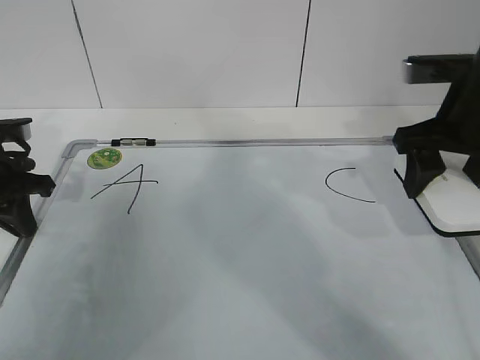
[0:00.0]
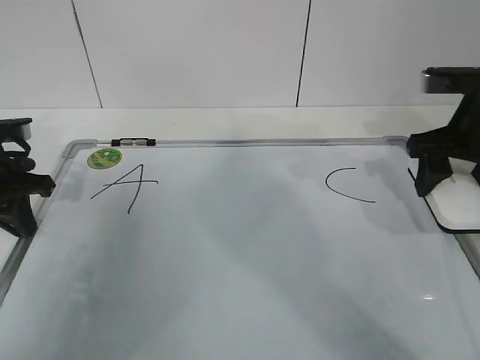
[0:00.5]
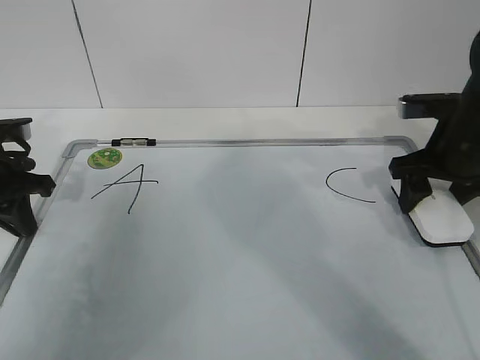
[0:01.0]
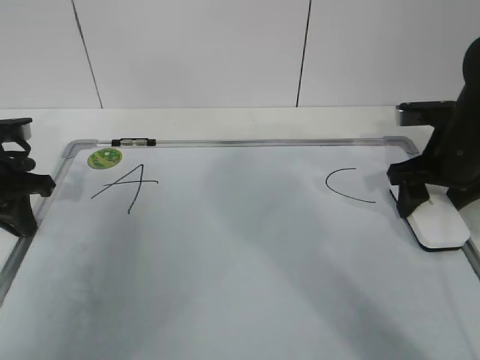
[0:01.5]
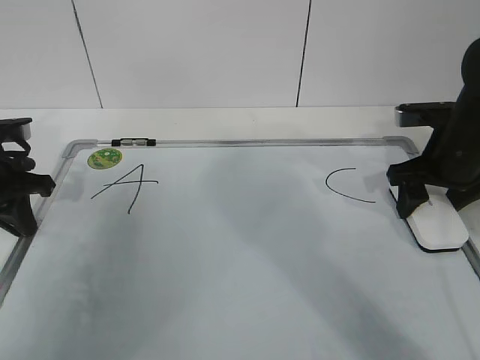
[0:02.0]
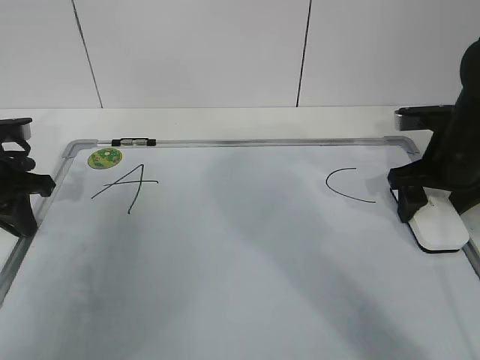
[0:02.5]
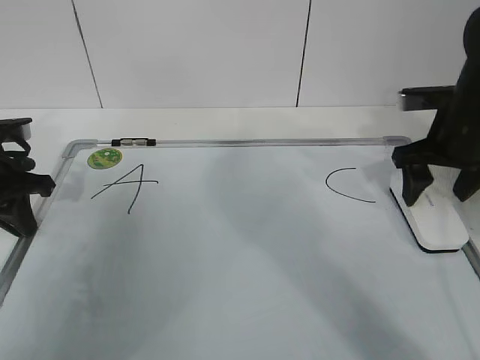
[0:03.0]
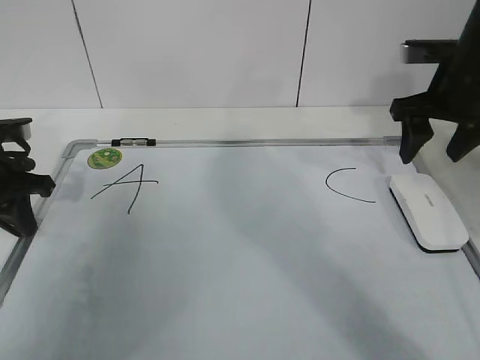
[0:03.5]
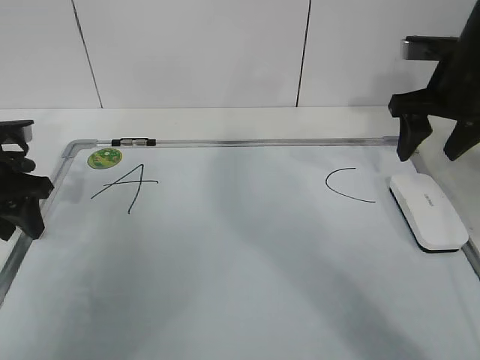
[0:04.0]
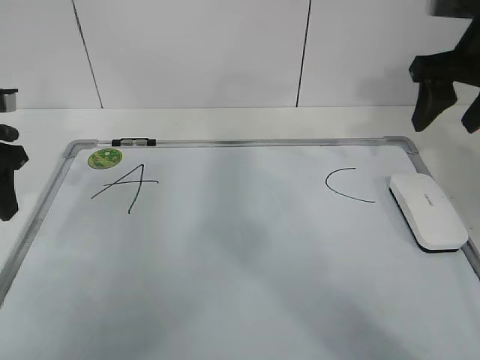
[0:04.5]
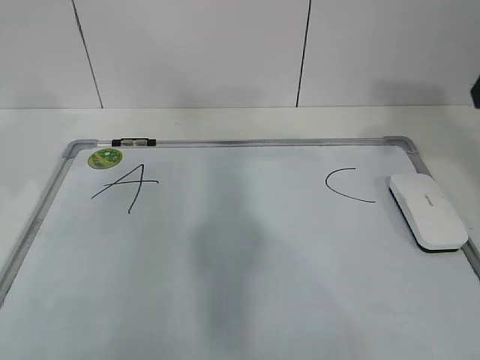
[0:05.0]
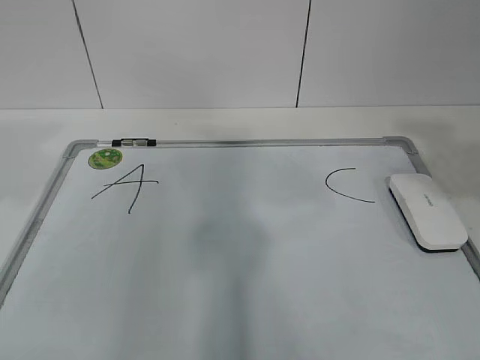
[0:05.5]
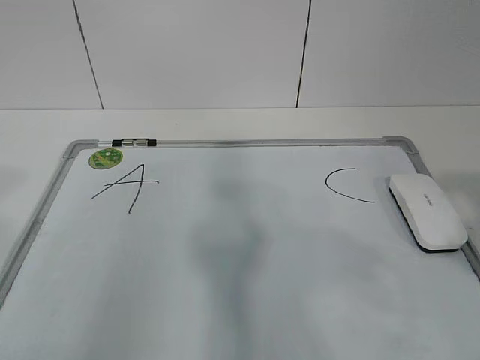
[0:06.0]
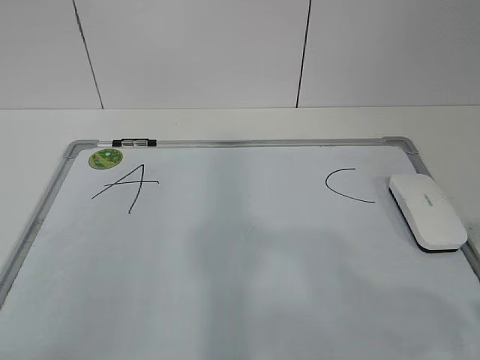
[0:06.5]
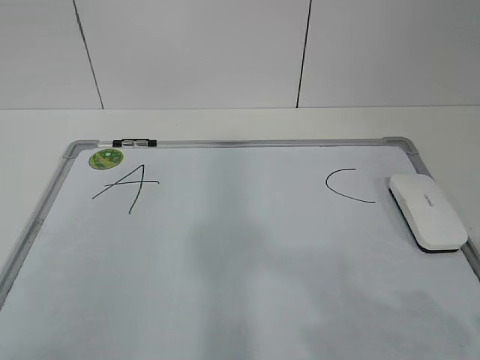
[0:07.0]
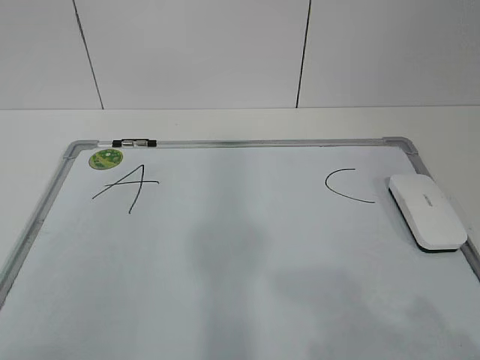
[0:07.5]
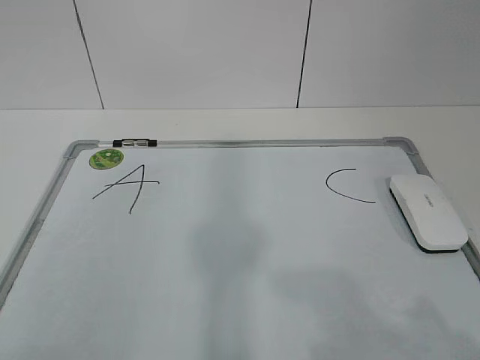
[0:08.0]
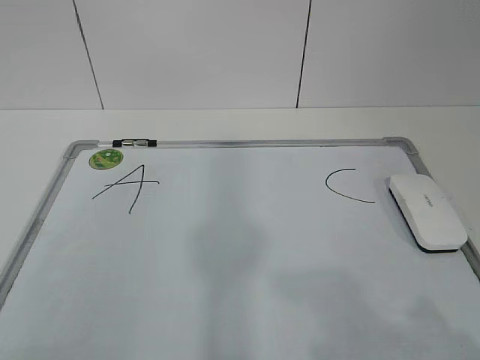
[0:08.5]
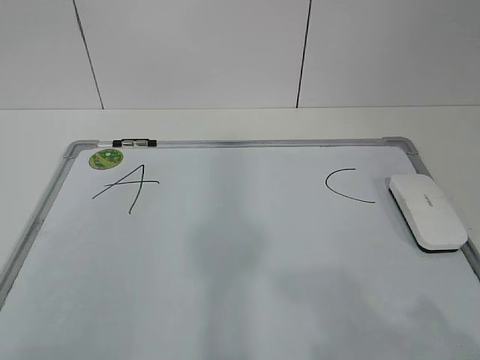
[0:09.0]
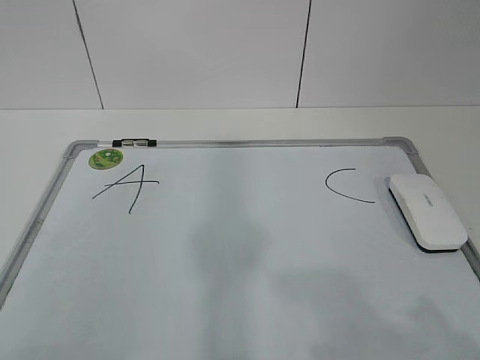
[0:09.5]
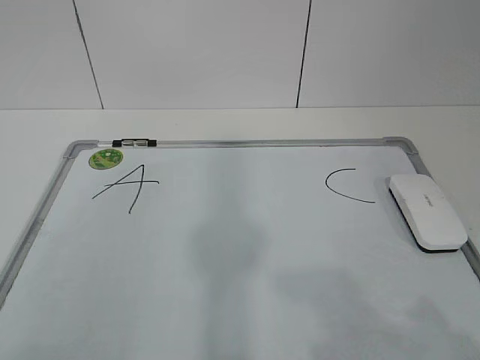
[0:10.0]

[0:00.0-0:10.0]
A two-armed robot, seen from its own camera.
Task of the whole recording: pick up the eraser on the blackboard and erase the letter "B".
0:00.0 to 0:02.0: The right gripper moves downward, about 10 cm.
0:02.0 to 0:04.0: The right gripper travels upward by roughly 10 cm, and opens and closes again. The left gripper opens its fingers.
0:04.0 to 0:06.0: The right gripper travels backward by some 35 cm. The left gripper moves backward and upward, some 30 cm.
0:06.0 to 0:08.0: The right gripper is displaced downward and backward by roughly 10 cm, while the left gripper moves backward and downward, some 10 cm.
0:08.0 to 0:10.0: Both grippers stay put.
